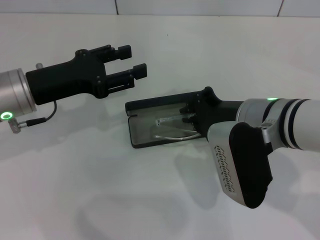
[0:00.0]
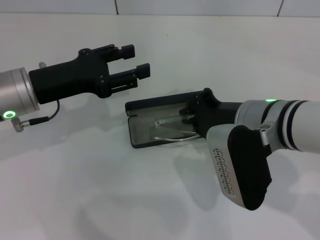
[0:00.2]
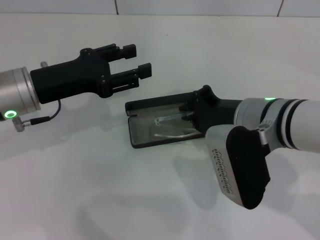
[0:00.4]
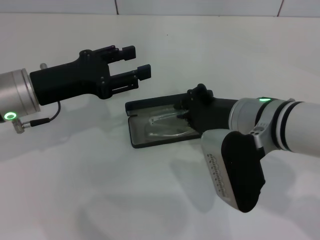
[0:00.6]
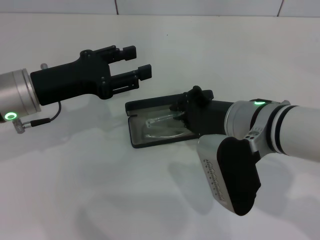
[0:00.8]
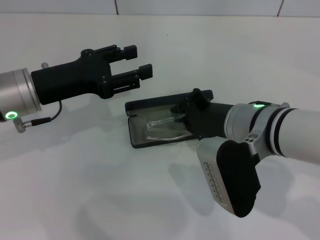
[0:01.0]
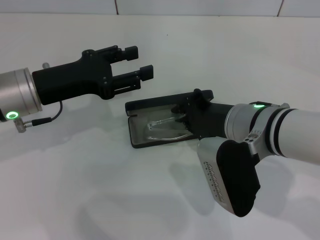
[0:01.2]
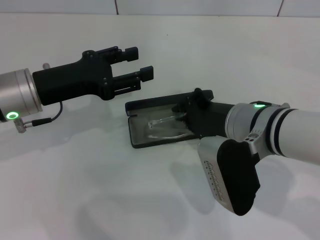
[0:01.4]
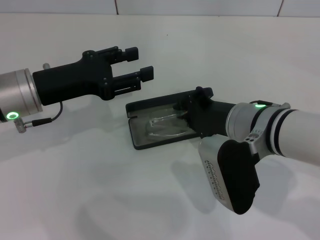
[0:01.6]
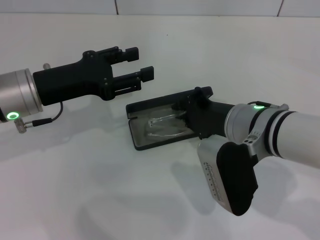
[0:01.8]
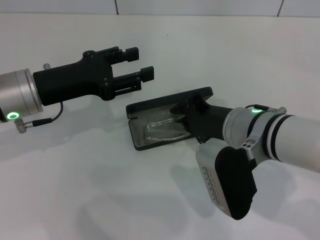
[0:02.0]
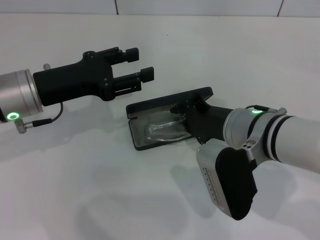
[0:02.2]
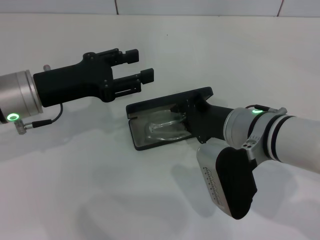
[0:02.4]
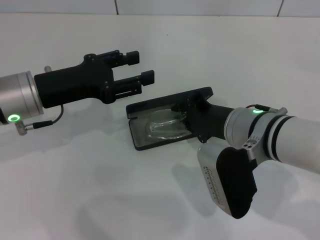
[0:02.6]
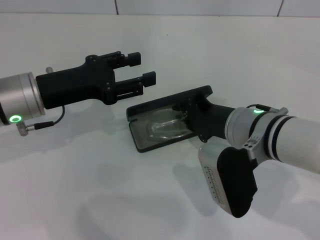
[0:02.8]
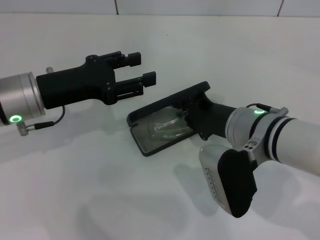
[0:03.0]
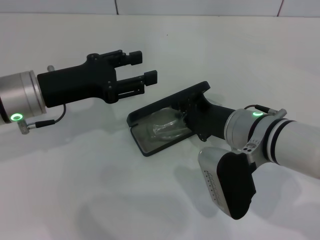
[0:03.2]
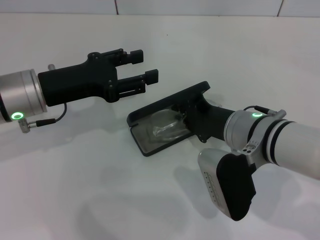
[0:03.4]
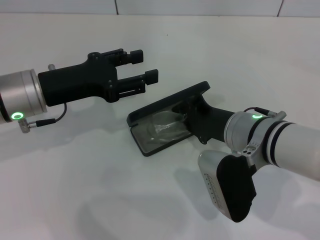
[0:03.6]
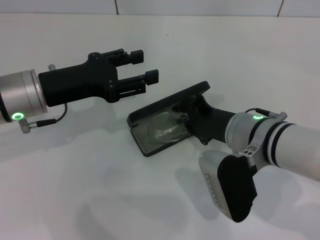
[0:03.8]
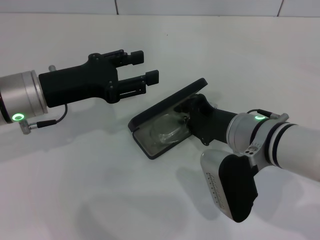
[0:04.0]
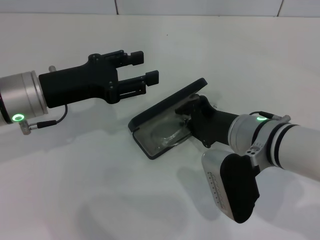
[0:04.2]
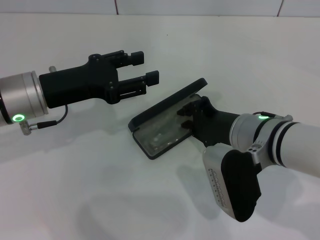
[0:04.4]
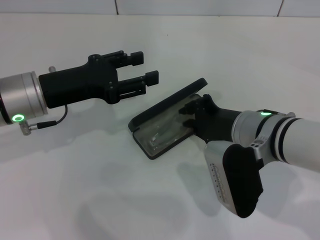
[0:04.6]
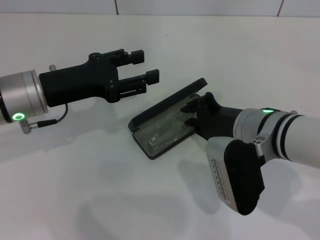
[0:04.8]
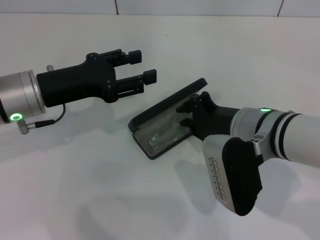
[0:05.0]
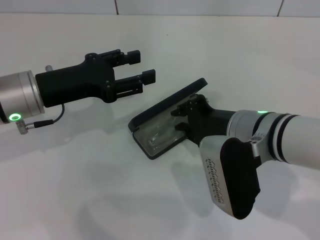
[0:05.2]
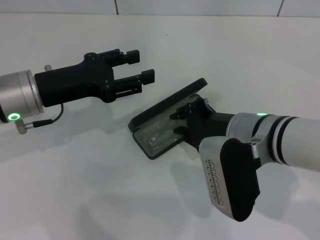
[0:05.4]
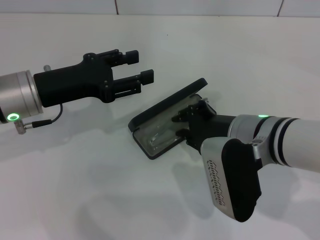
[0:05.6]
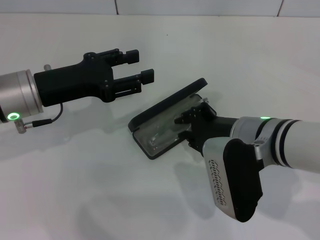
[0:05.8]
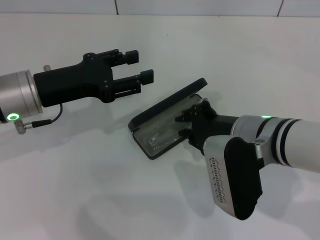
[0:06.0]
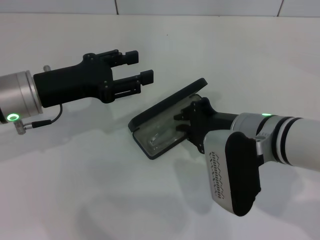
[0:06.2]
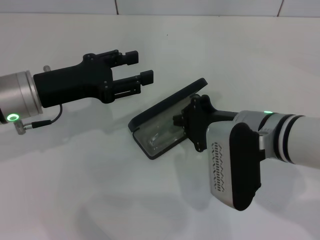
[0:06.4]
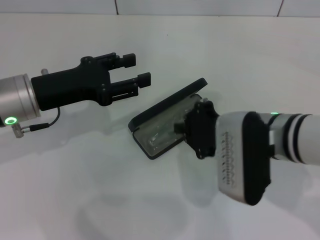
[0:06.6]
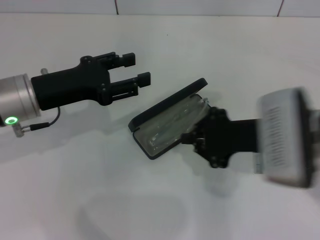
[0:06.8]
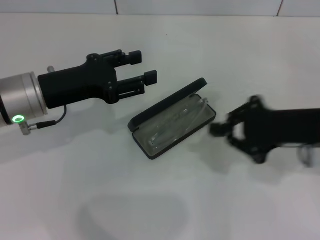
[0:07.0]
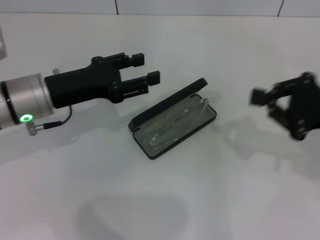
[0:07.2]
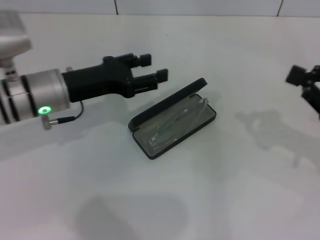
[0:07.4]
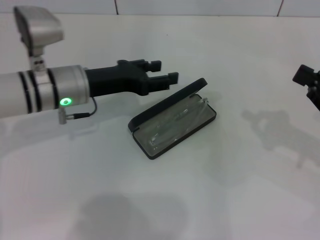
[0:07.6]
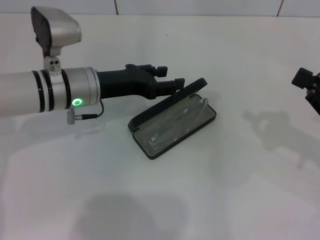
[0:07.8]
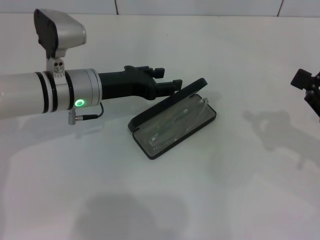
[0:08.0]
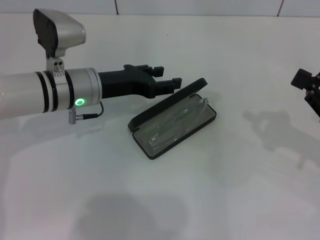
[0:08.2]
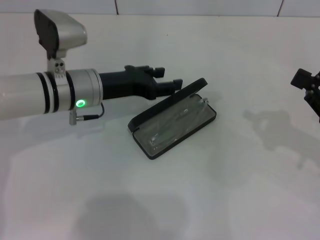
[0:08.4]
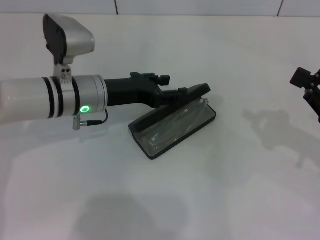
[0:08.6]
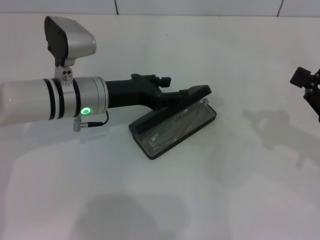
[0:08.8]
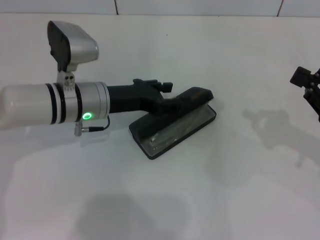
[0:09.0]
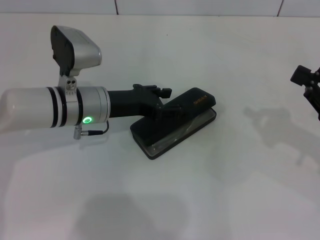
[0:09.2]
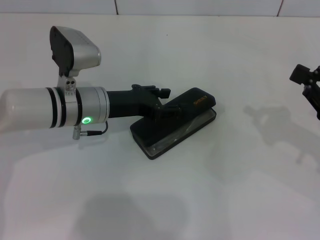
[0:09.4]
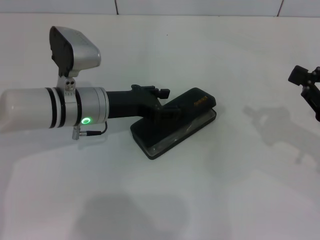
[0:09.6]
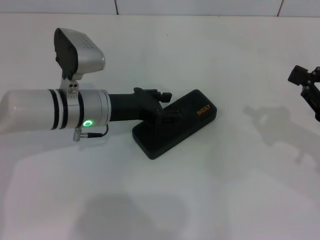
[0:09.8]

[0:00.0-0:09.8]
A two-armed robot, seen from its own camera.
Step, 0.0 to 5.0 s: Put the glasses into the case with your right hand.
Step, 5.2 to 9.6 s: Close the glasses case with your left hand.
0.0 to 2.8 s: The grippers stay close to where they were, moving slightly.
2.8 to 4.2 s: Both grippers stay about where they are.
4.2 to 5.6 s: There are only small adjustments of the grippers.
5.6 to 7.0 s: The right gripper heads to the right, covering some 10 cm.
7.0 to 8.4 s: The right gripper shifts about 10 cm to the right. Meanwhile the left gripper moves to the right and forward, some 10 cm.
8.4 to 9.8 s: The grippers stay close to where they were, moving slightly.

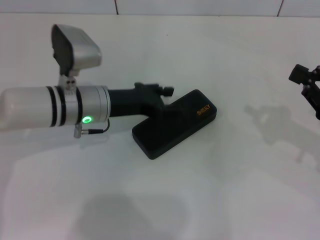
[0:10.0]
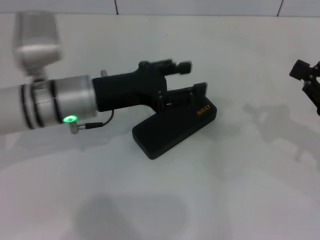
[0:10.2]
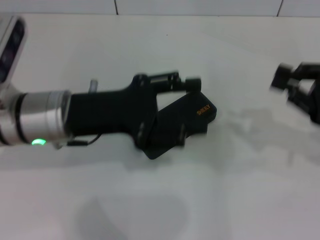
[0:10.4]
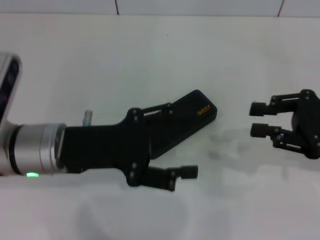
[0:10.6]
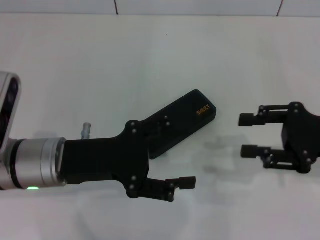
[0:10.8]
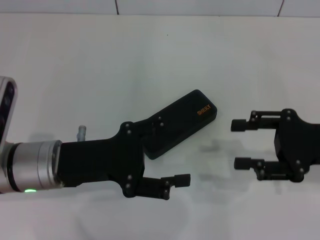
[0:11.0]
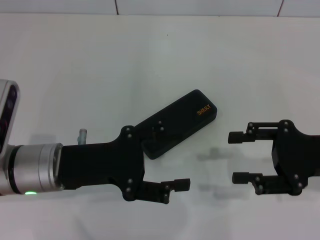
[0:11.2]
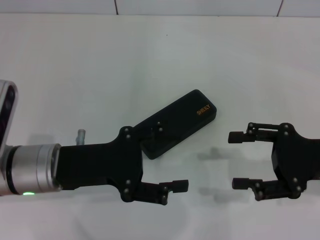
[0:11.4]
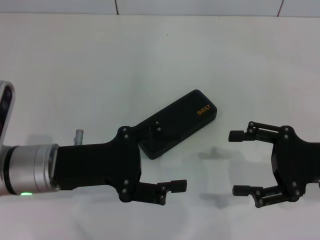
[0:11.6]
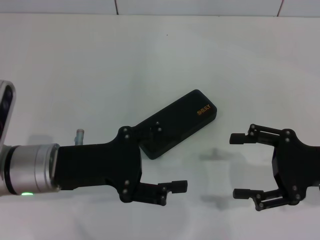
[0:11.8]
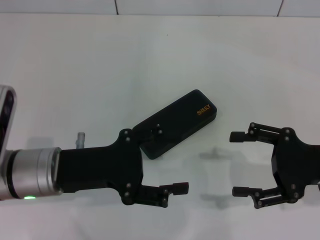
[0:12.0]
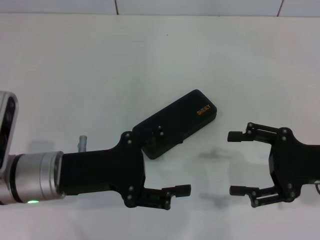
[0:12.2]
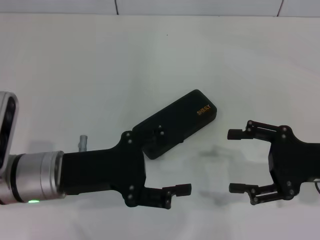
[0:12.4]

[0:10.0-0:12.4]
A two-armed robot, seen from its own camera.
10.0 to 11.2 s: The left gripper shifts approximately 10 cm backward, while the right gripper moves to the left, some 5 cm, and opens up.
11.2 to 12.4 s: The grippers make only small movements.

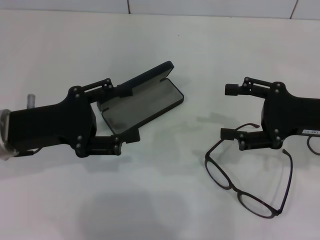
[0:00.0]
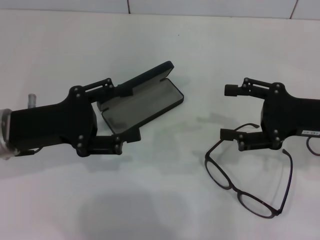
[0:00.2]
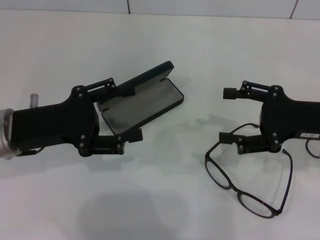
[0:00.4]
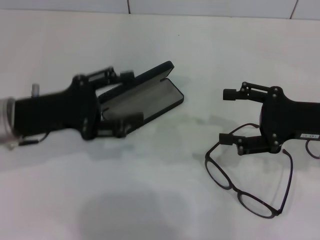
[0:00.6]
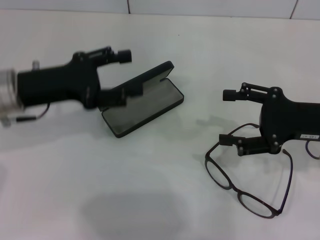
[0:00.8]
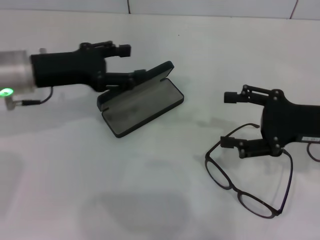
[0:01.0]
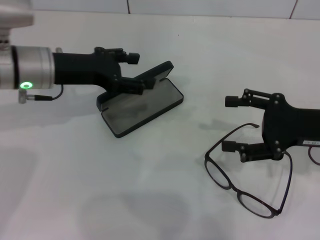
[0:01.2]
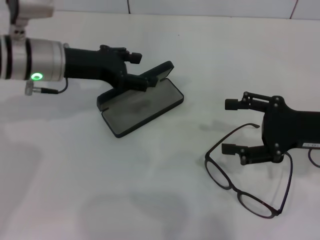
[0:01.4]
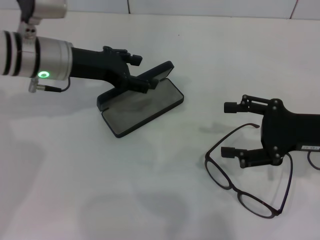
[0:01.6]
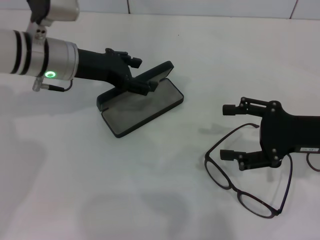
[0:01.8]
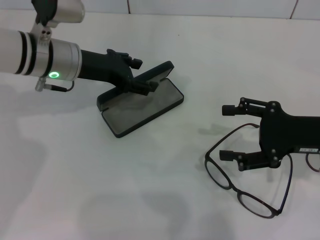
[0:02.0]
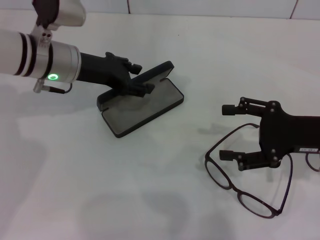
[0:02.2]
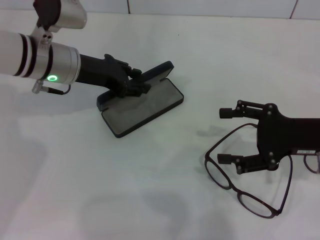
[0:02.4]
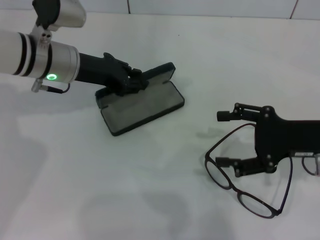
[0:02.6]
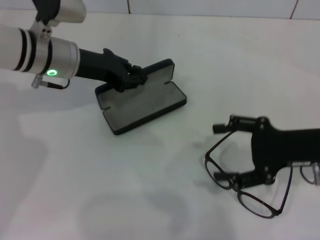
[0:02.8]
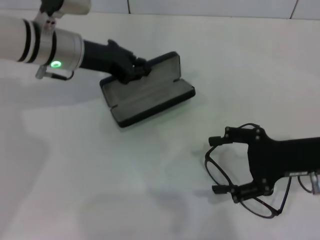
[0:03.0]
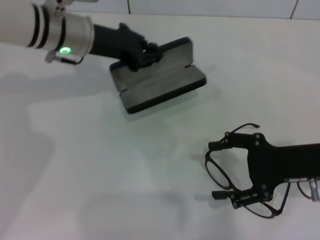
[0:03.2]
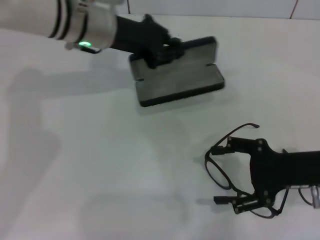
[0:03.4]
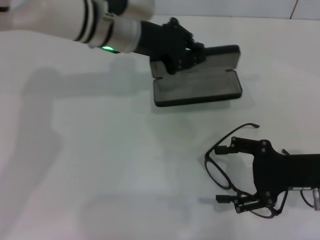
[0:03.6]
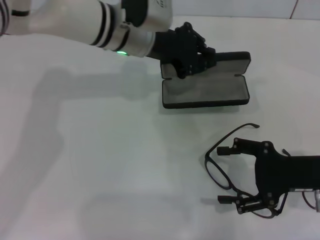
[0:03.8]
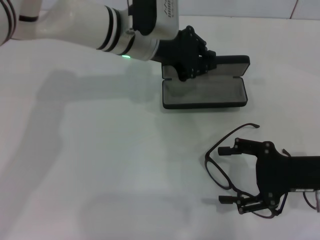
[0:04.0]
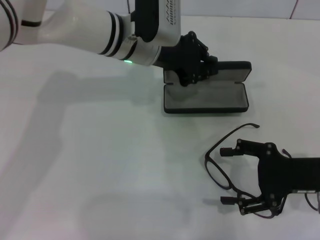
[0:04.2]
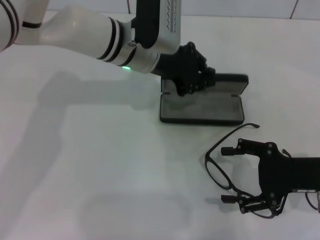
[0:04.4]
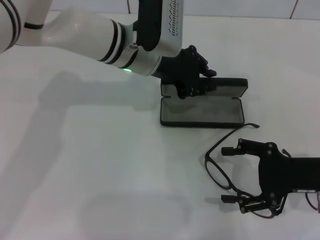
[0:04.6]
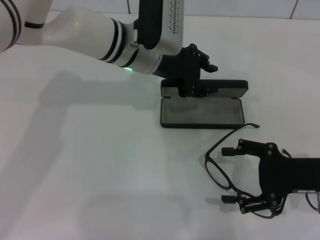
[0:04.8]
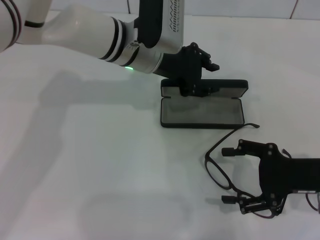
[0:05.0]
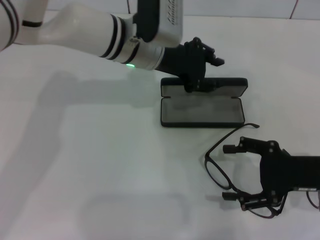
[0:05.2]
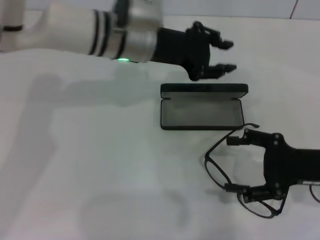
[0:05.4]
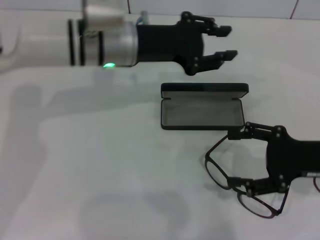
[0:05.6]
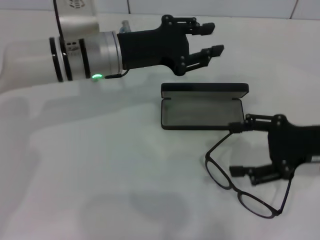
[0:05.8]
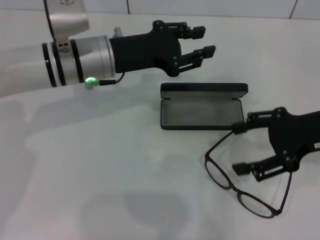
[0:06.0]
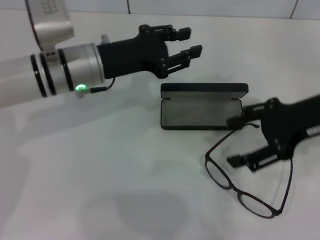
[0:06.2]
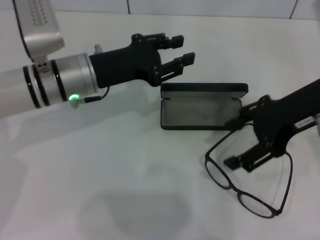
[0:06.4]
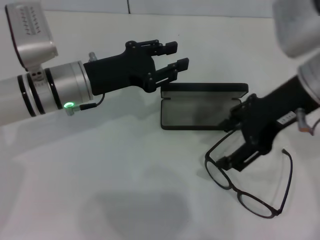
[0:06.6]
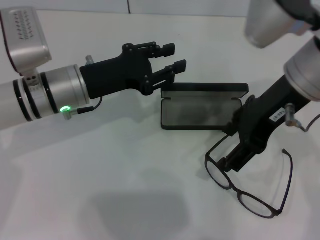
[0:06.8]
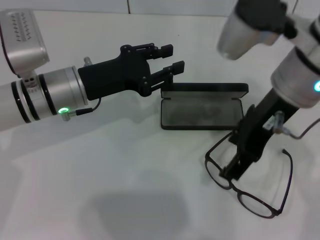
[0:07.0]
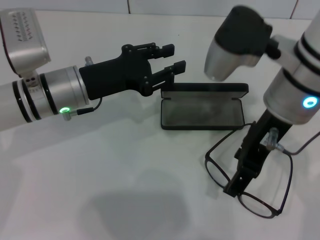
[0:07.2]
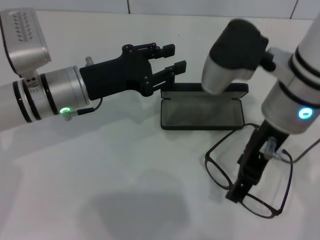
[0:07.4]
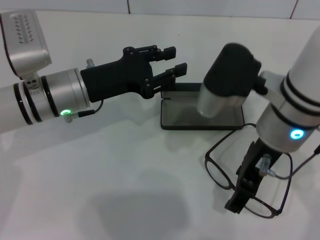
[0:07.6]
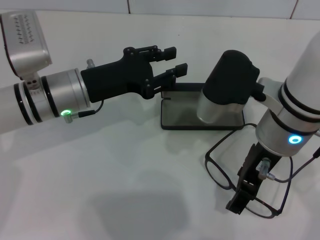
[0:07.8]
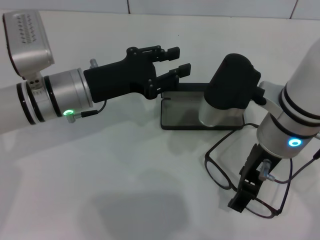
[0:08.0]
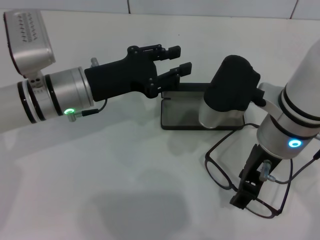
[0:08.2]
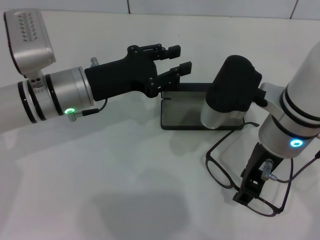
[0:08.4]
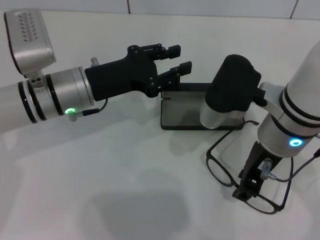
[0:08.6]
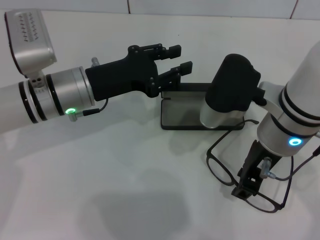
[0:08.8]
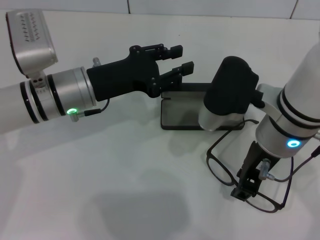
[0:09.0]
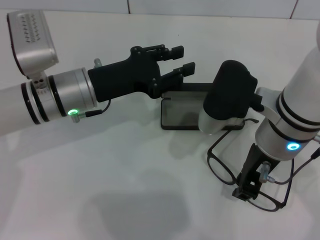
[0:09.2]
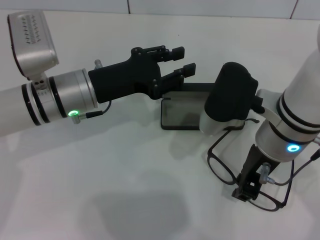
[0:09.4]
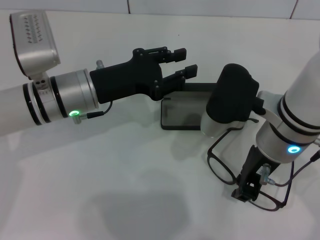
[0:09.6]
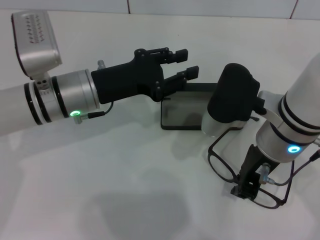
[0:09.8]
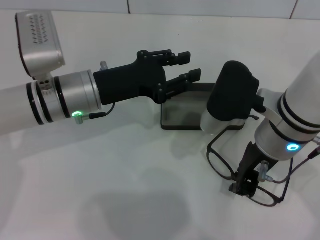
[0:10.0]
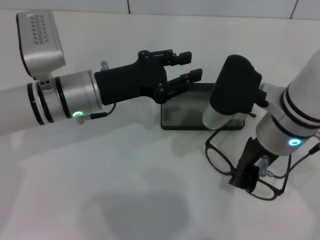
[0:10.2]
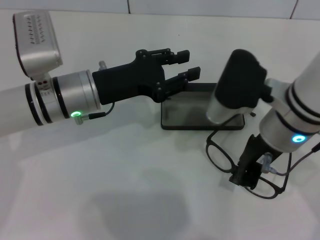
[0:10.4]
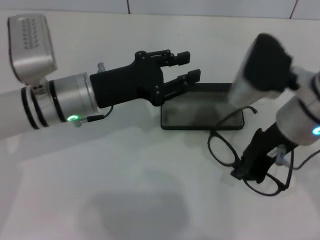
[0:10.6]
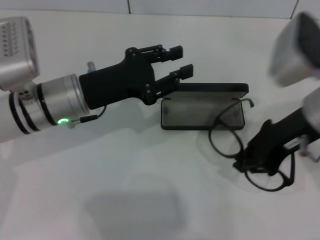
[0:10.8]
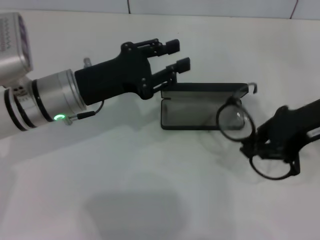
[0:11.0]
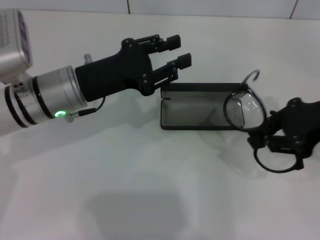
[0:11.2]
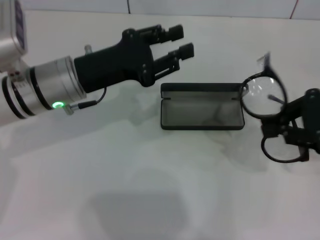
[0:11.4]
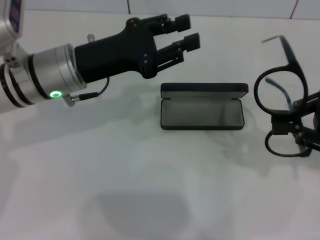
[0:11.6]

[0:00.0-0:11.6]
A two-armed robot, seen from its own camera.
Step, 0.0 to 2.4 s: Grab the glasses case with your left hand.
Step, 2.8 to 5.0 s: Place the glasses case in the center of the table with your left hand.
Step, 5.2 to 10.0 s: Grab the eyeglass frame with your right hand.
0.0 to 1.4 s: The left gripper goes roughly 10 cm forward.
1.4 to 2.8 s: The left gripper closes.
2.8 to 4.4 s: The left gripper is displaced to the right by some 10 cm.
4.4 to 5.8 s: The right gripper changes place by roughly 5 cm, while the left gripper is displaced to the left by about 5 cm.
5.8 to 7.2 s: The right gripper moves to the left and upward, approximately 20 cm. The left gripper moves some 5 cm.
7.2 to 8.8 s: The right gripper goes approximately 5 cm downward, and closes its fingers.
8.8 to 10.2 s: The right gripper closes up.
10.2 to 11.6 s: The right gripper goes approximately 20 cm to the right.
